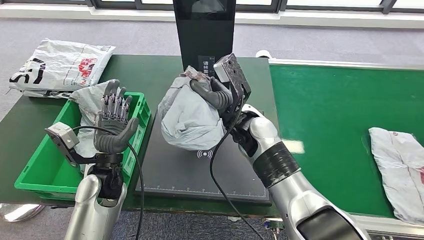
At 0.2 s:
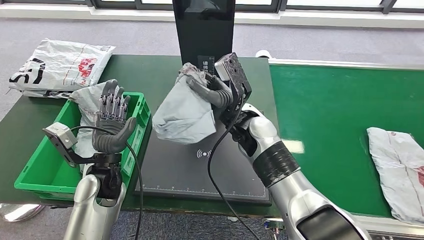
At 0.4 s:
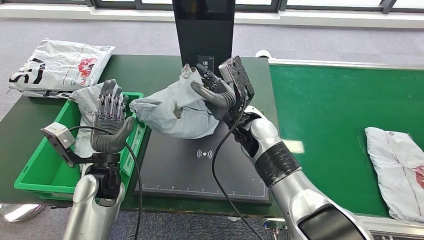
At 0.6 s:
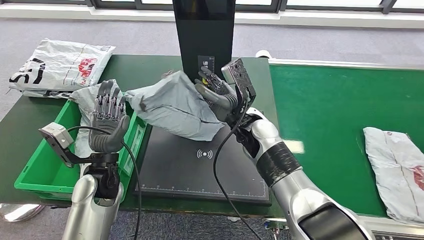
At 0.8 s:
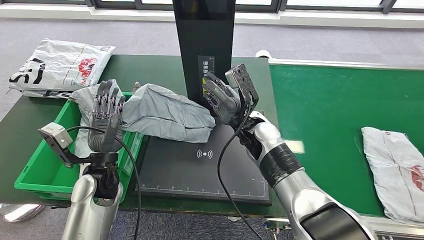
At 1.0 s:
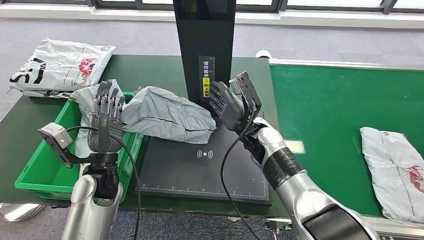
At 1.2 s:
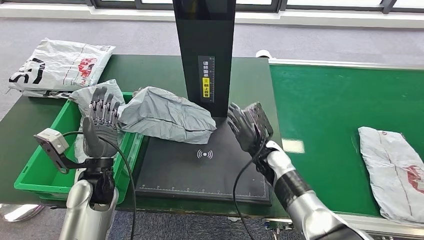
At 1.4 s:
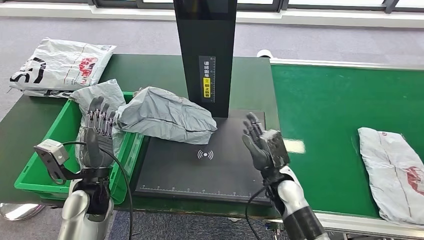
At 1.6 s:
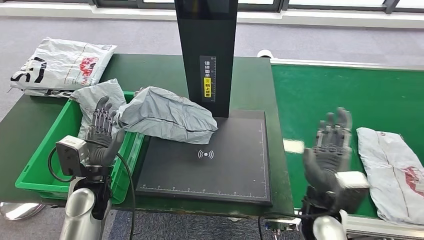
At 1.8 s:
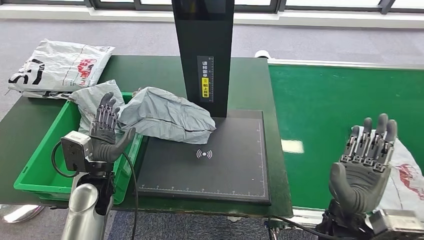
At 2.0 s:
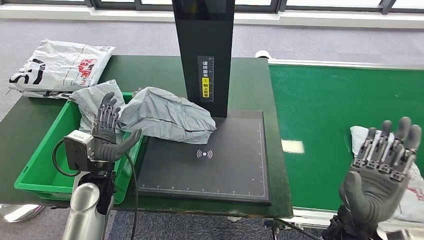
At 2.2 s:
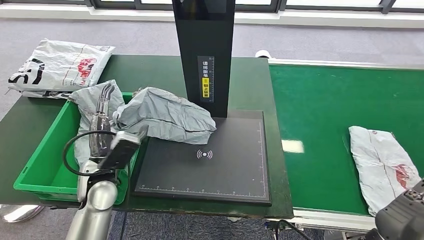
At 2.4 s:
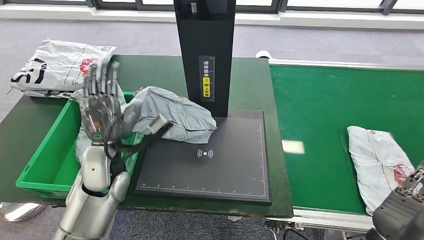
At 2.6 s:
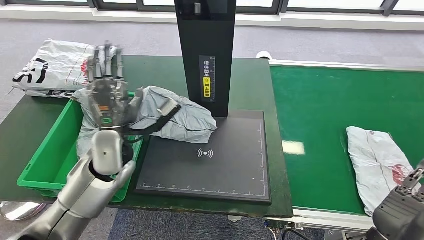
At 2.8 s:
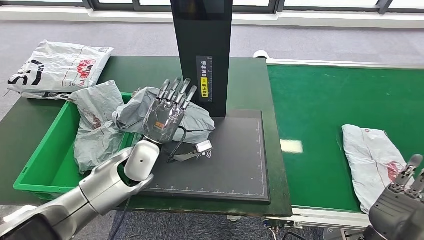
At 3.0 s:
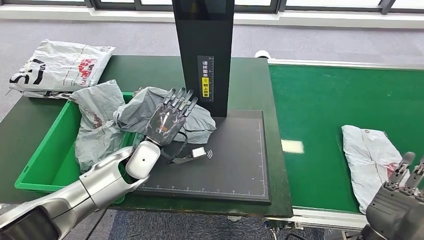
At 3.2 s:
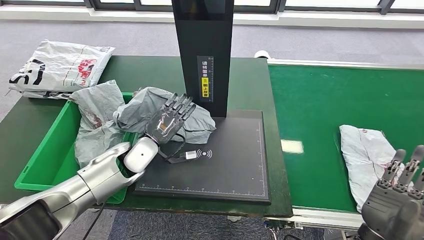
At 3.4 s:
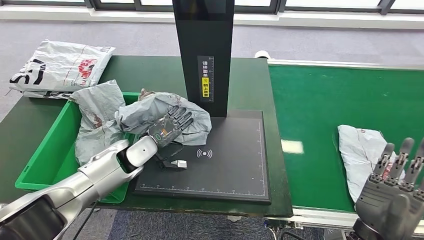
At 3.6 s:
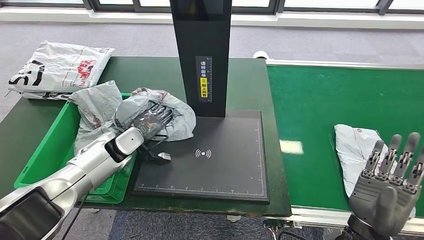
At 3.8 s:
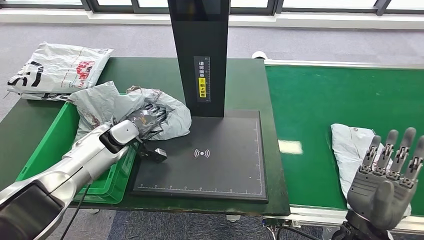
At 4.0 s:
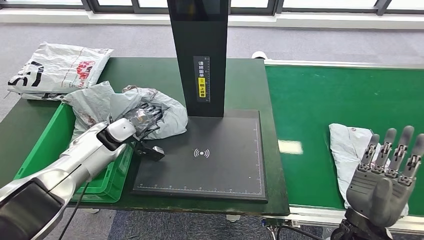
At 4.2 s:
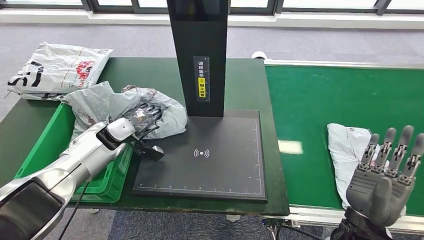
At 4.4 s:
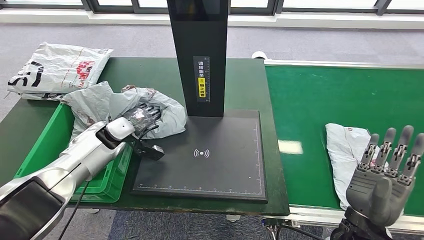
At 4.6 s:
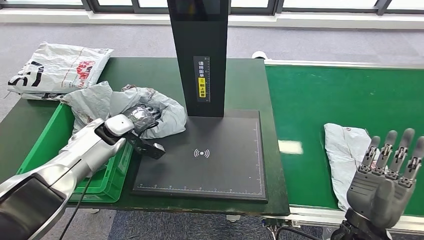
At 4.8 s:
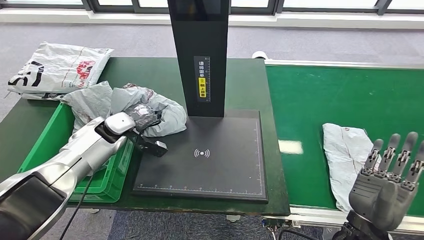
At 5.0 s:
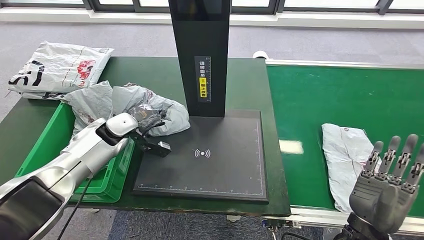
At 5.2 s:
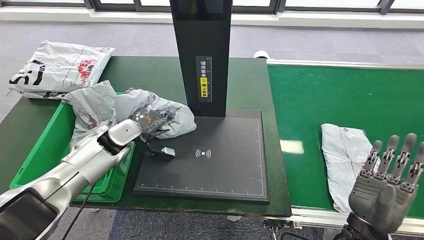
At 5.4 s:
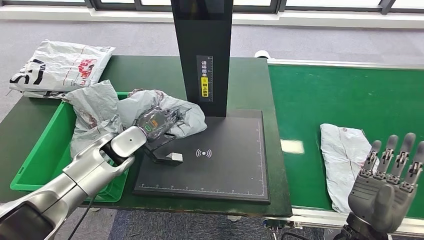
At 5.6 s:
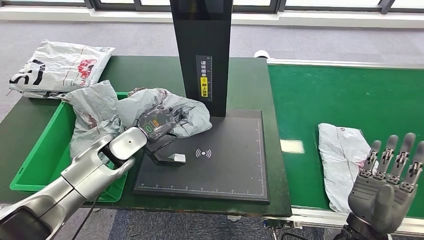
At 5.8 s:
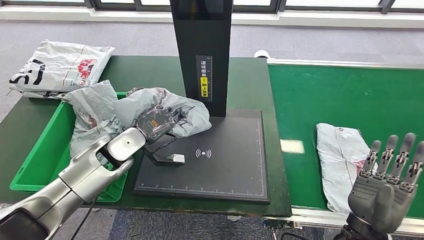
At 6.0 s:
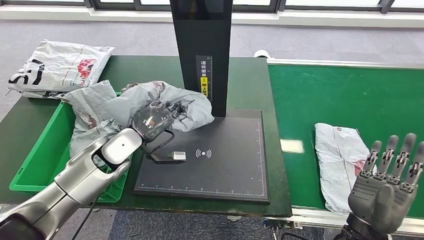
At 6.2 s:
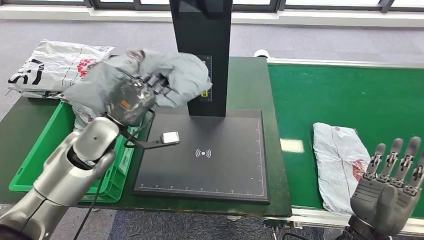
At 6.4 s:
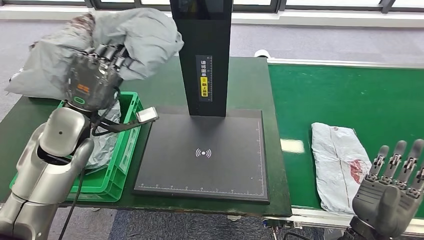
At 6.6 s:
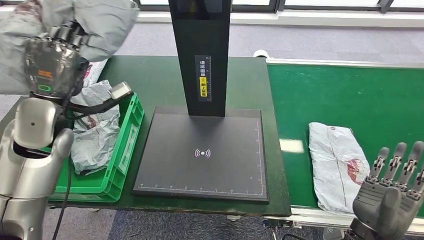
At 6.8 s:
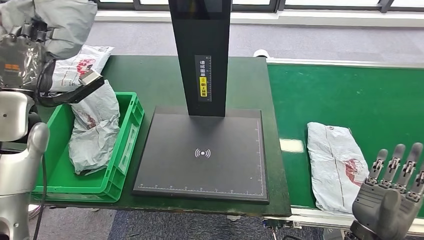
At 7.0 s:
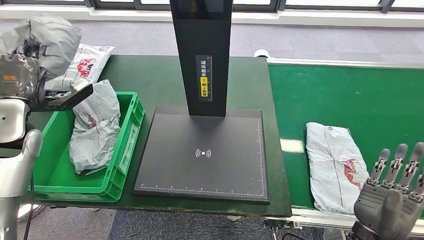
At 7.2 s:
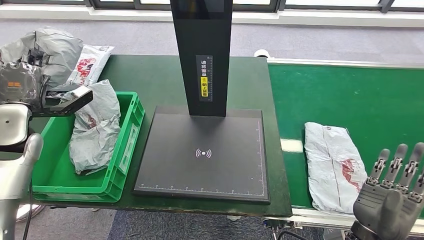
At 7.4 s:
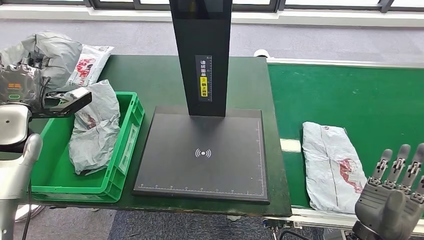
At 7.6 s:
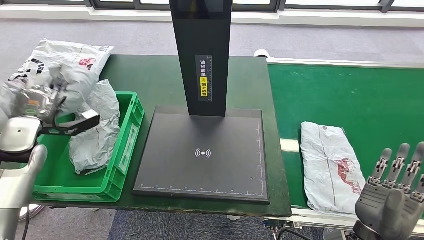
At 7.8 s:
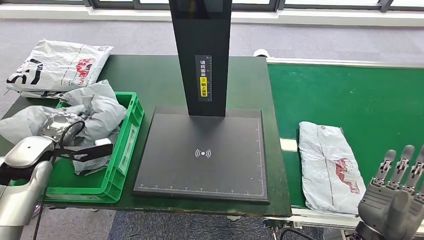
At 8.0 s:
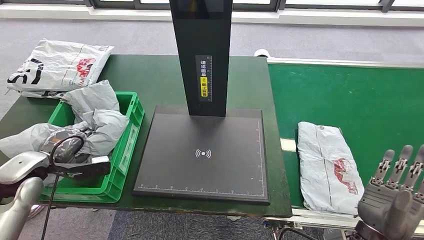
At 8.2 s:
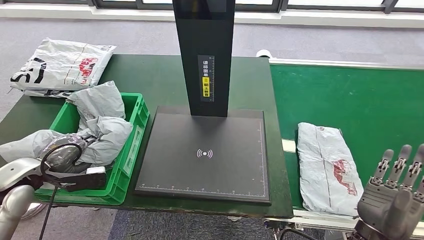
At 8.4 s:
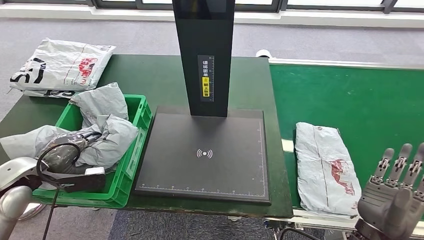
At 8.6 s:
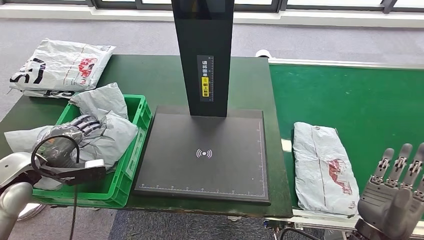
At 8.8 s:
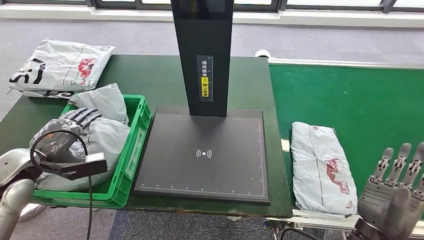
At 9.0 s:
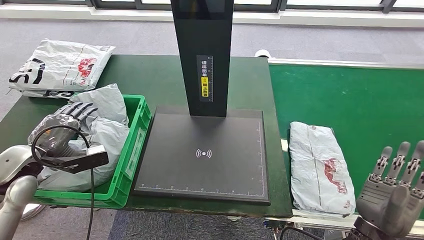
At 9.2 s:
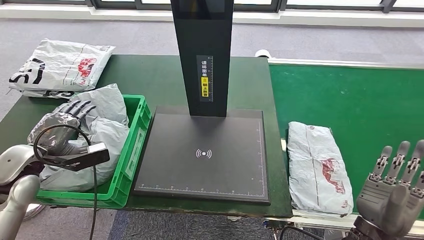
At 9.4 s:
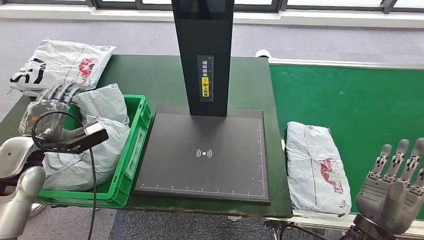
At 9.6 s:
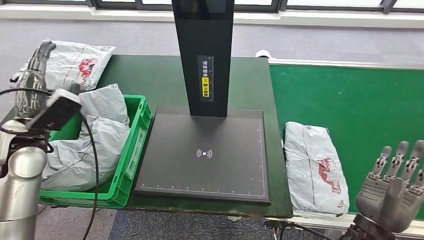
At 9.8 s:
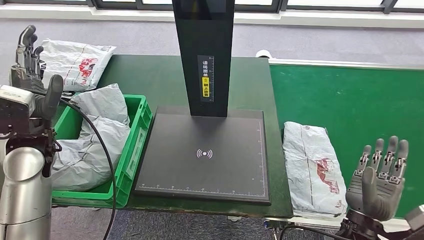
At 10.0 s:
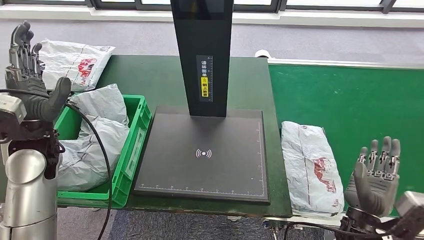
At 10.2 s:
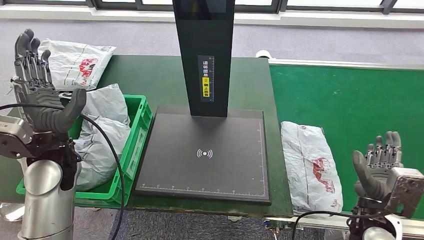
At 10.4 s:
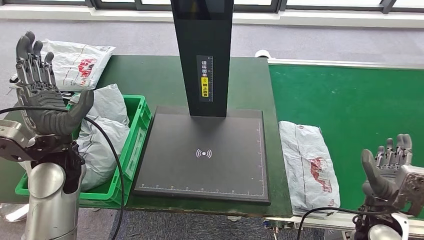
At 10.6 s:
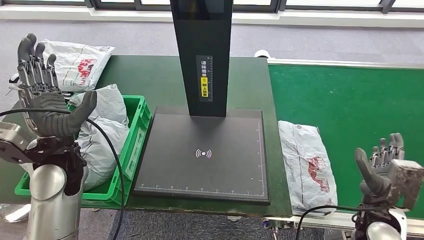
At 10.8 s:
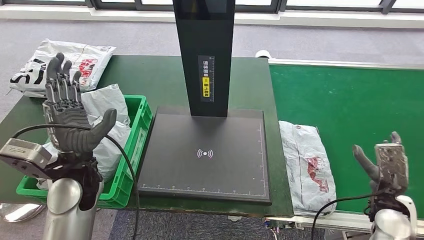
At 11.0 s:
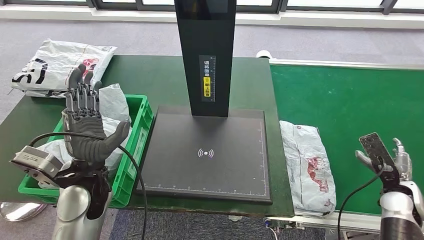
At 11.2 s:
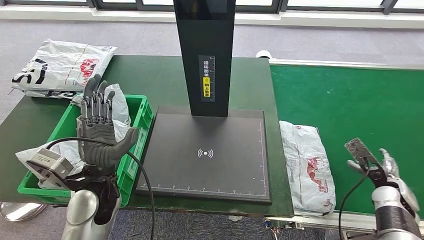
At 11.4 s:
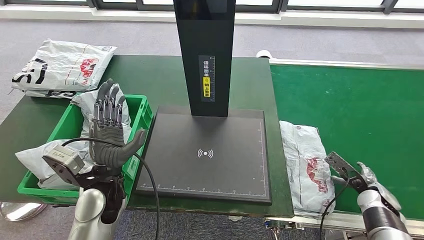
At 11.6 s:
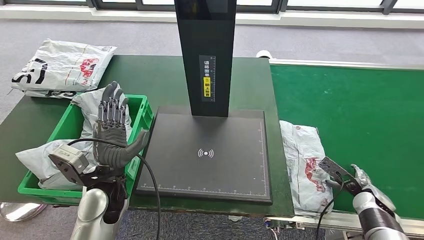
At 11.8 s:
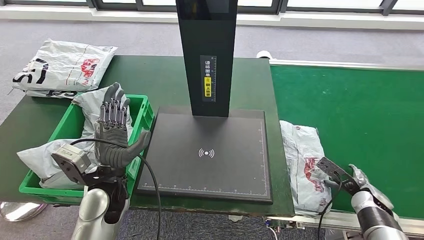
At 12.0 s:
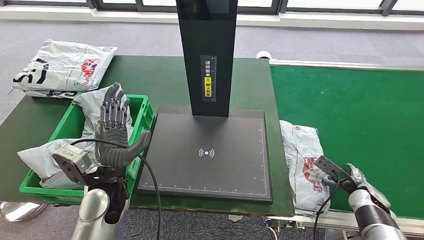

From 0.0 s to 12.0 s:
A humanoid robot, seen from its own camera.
Step, from 1.4 s to 6.6 s: Pick up the parcel from the inbound machine.
Step, from 6.8 s to 9.8 s: Place the parcel into the delivery box.

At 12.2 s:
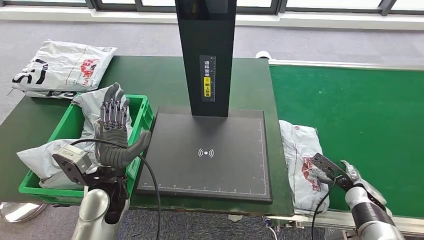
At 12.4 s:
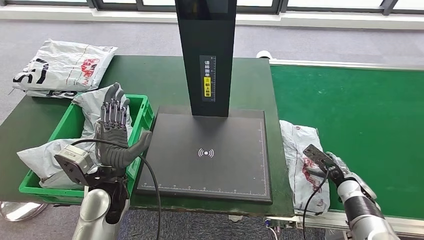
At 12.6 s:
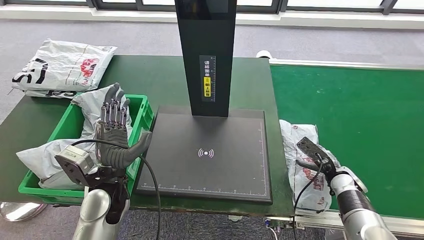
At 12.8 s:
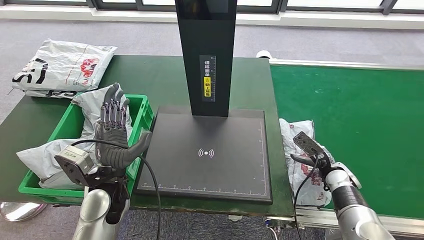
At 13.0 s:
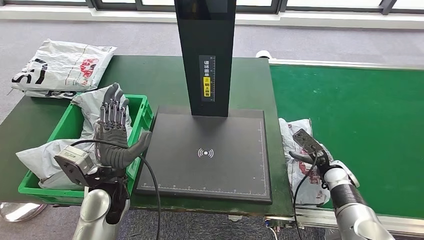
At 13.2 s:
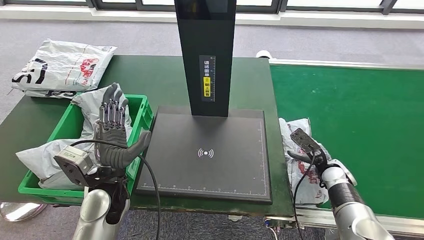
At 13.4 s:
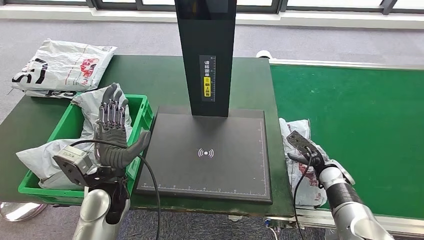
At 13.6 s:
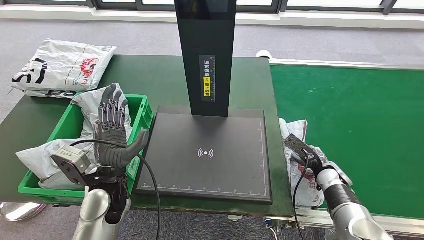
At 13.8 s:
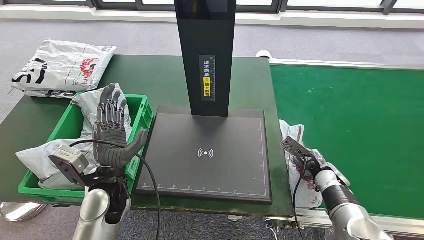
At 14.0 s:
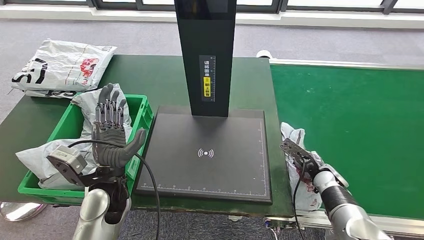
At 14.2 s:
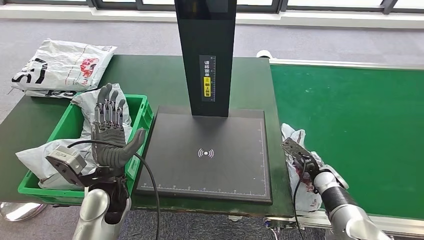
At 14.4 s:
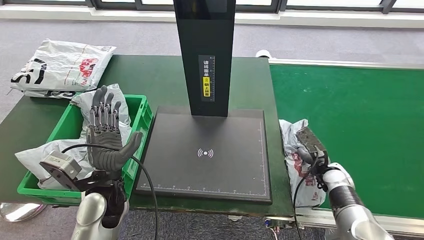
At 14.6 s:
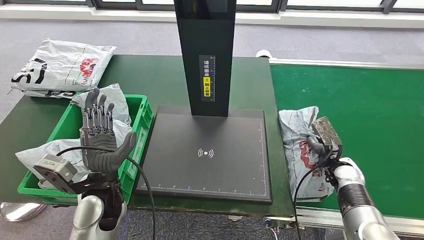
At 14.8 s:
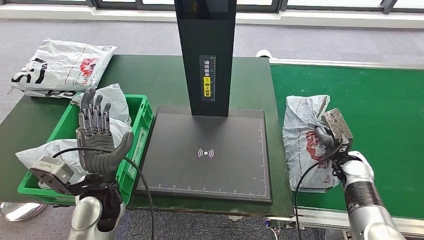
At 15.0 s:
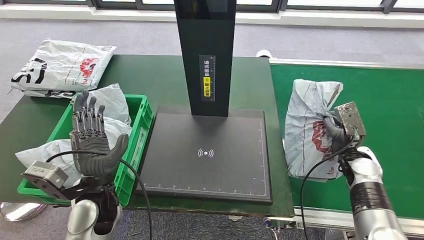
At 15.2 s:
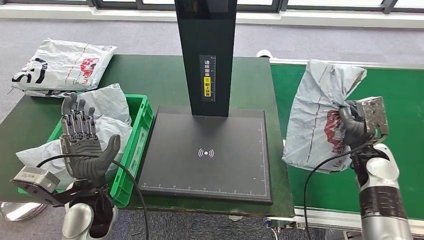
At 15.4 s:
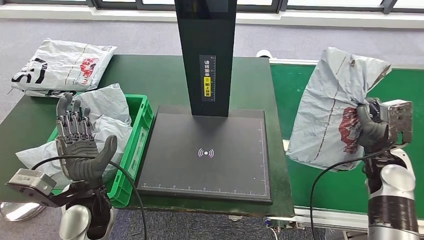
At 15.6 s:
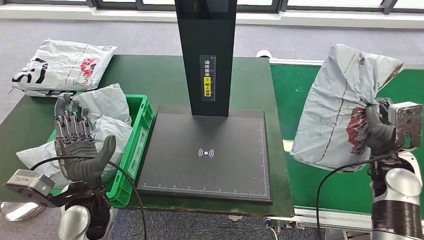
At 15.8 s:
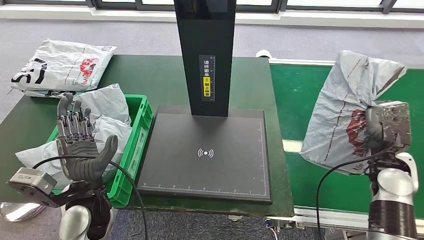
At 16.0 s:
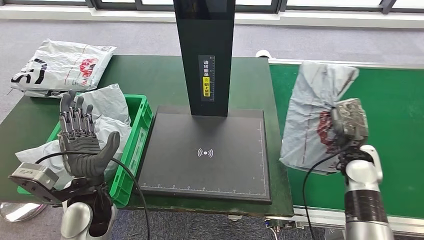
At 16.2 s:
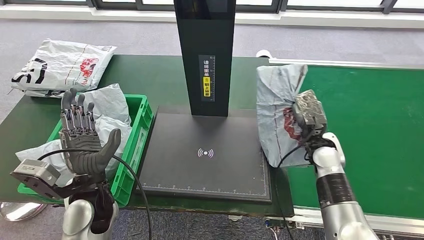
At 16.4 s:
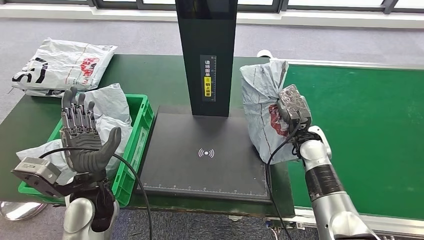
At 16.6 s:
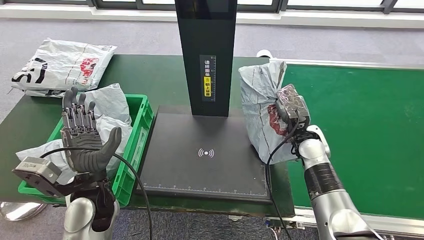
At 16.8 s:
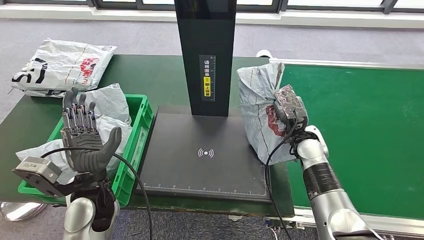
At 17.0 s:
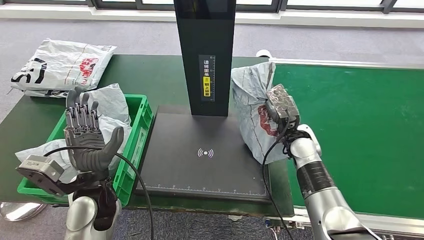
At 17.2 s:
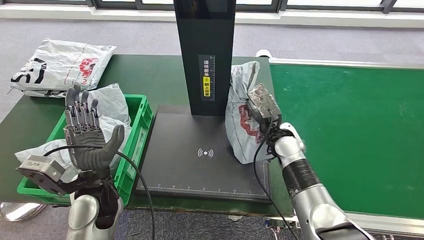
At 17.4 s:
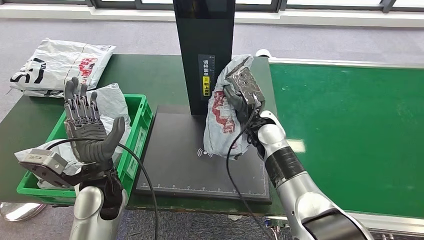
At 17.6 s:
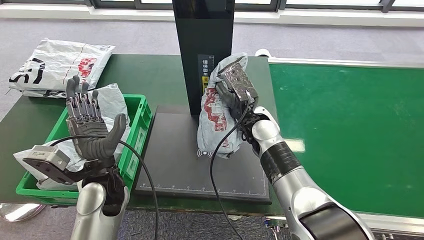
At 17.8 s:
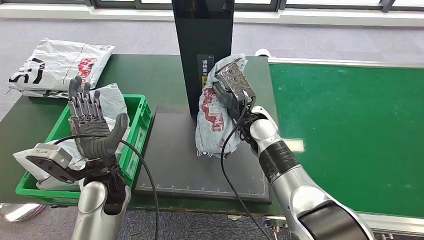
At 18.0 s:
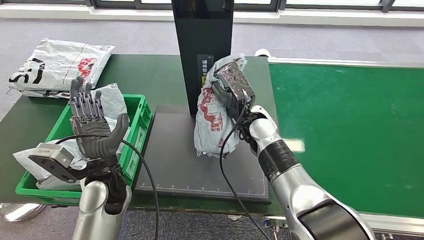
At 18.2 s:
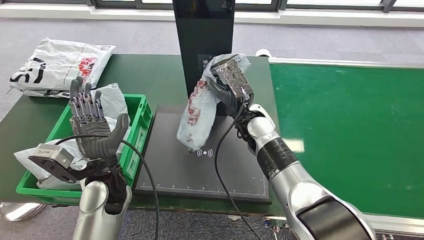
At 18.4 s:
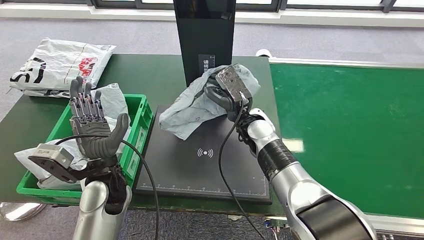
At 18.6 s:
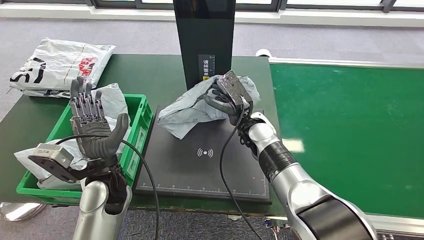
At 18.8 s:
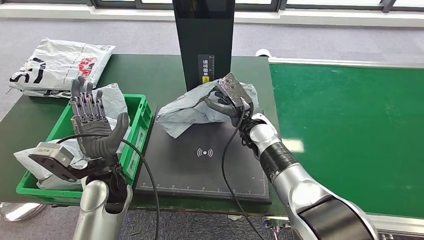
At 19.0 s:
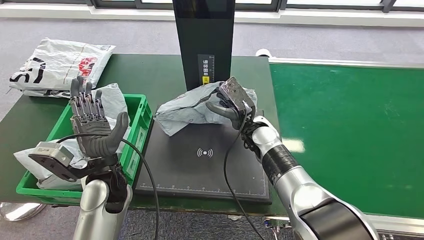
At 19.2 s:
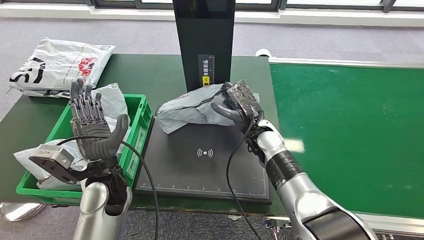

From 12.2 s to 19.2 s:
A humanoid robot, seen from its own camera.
Step, from 12.2 s to 15.4 s: Pick up the parcel from the conveyor belt.
From 12.2 s to 13.6 s: The right hand shifts some 10 cm to the left.
From 17.8 s to 19.2 s: The right hand ends up some 5 cm from where it was.